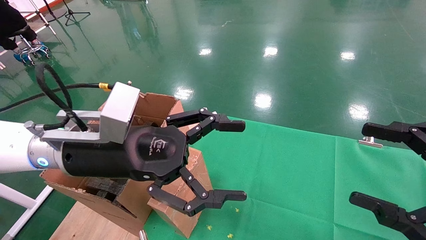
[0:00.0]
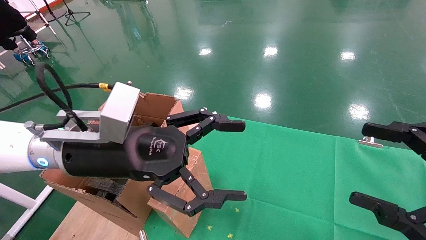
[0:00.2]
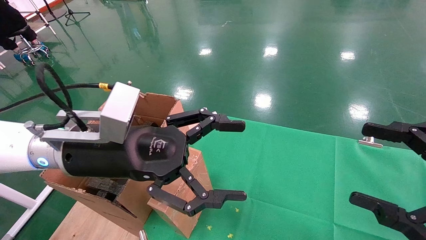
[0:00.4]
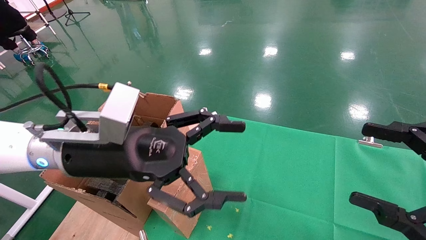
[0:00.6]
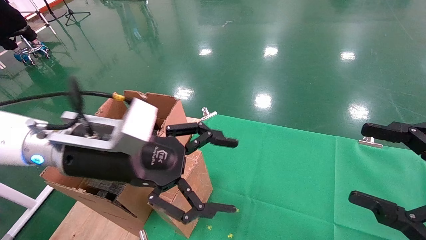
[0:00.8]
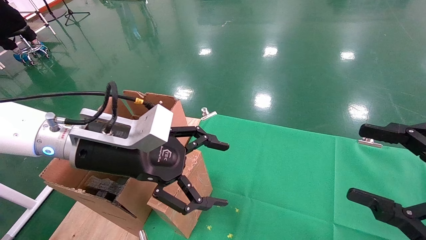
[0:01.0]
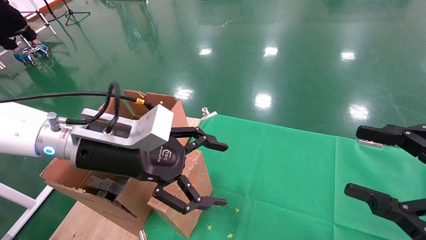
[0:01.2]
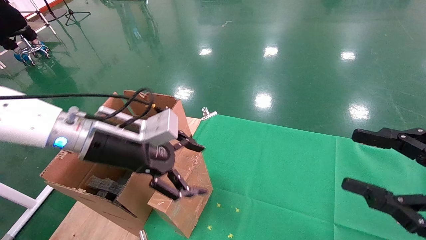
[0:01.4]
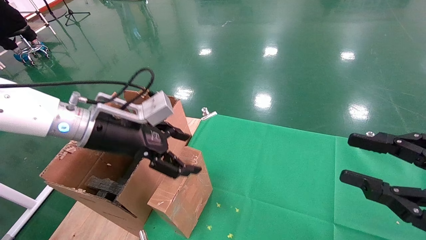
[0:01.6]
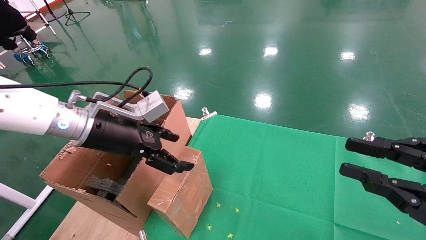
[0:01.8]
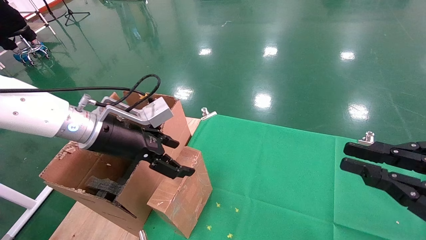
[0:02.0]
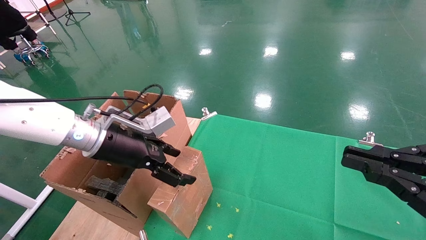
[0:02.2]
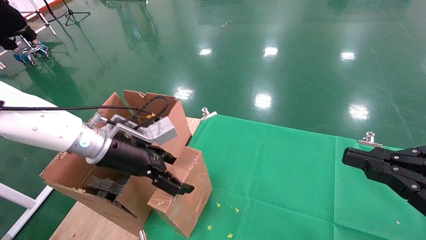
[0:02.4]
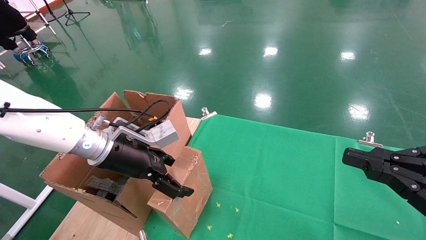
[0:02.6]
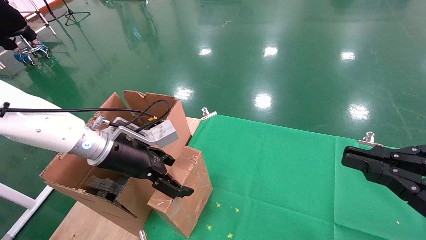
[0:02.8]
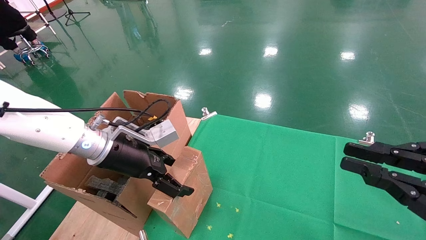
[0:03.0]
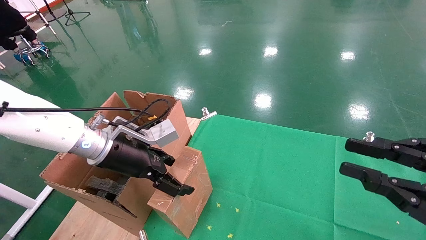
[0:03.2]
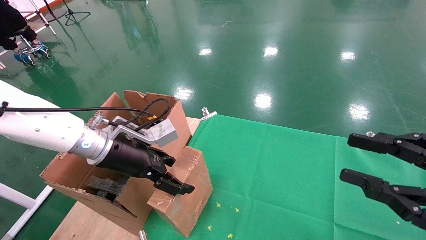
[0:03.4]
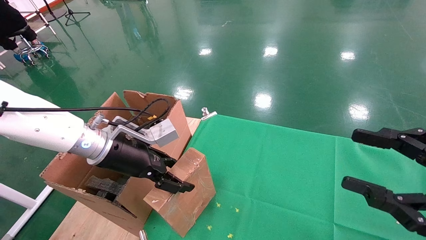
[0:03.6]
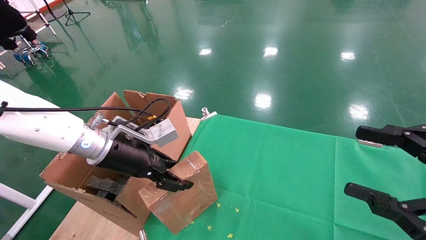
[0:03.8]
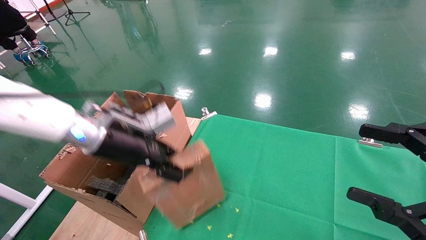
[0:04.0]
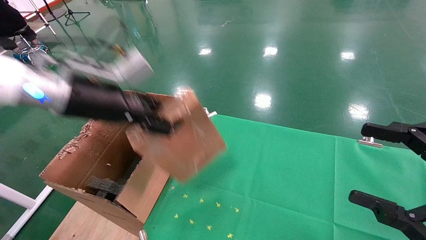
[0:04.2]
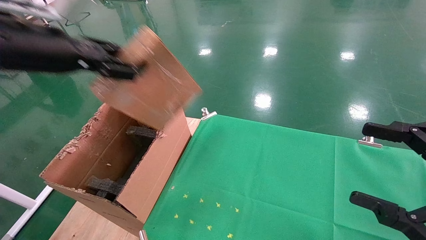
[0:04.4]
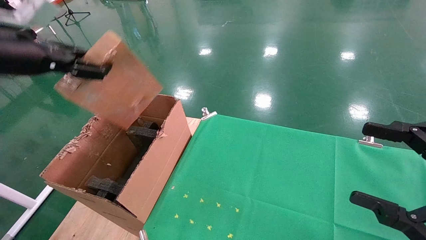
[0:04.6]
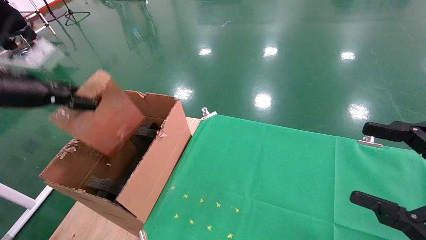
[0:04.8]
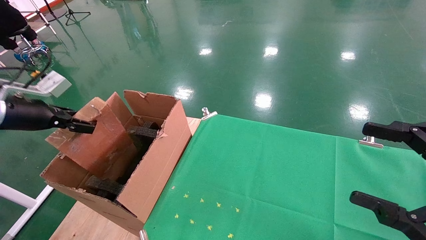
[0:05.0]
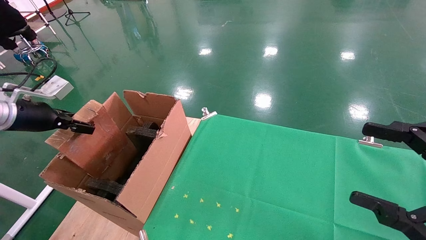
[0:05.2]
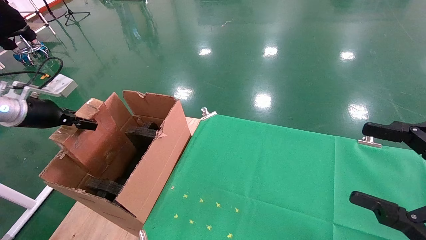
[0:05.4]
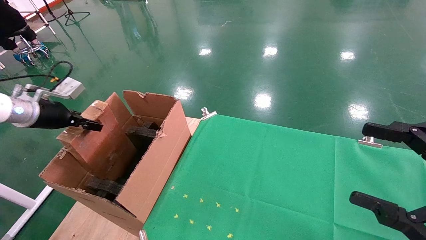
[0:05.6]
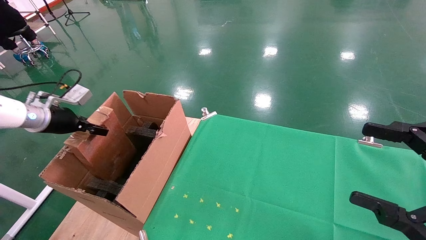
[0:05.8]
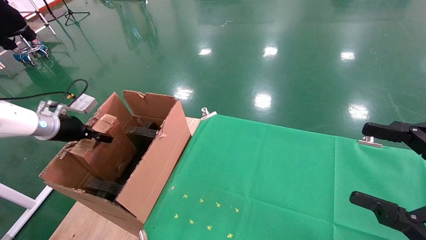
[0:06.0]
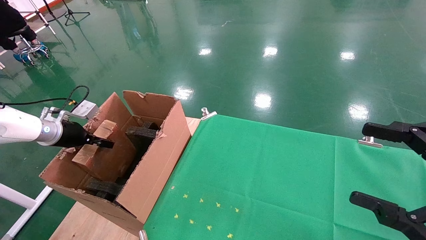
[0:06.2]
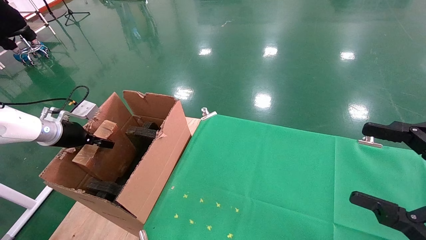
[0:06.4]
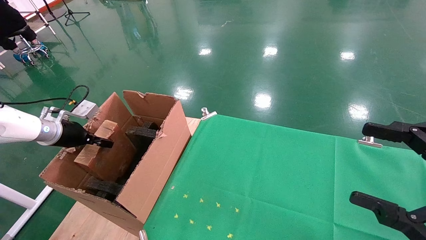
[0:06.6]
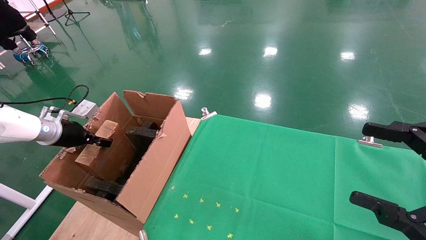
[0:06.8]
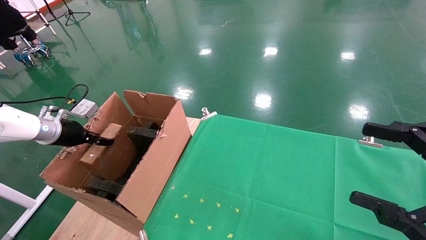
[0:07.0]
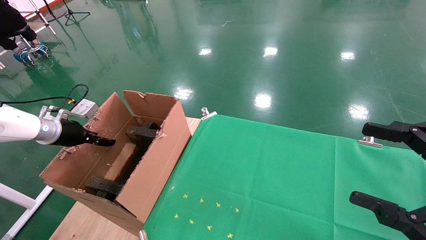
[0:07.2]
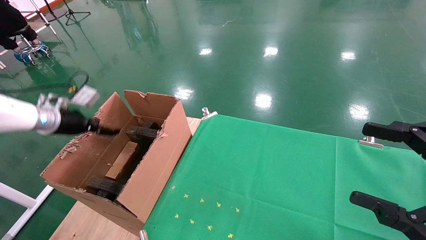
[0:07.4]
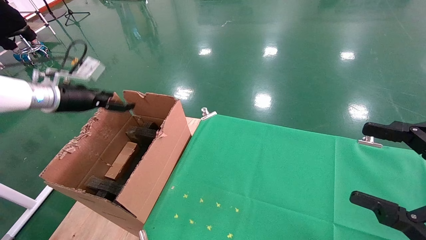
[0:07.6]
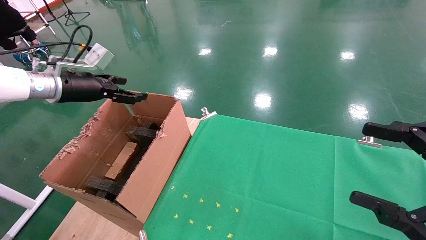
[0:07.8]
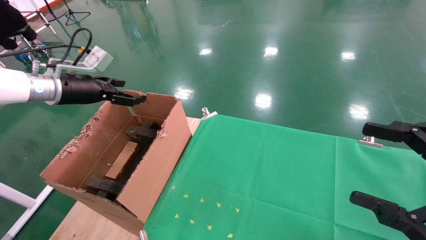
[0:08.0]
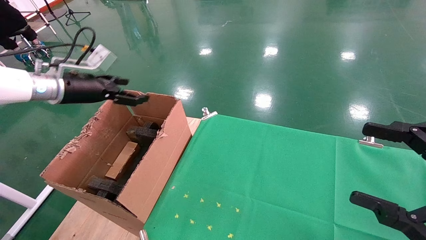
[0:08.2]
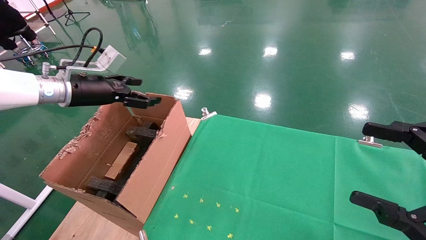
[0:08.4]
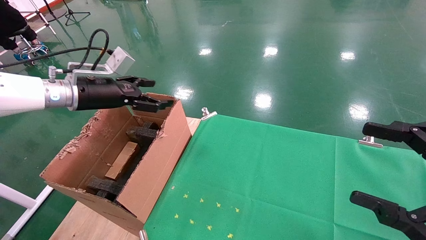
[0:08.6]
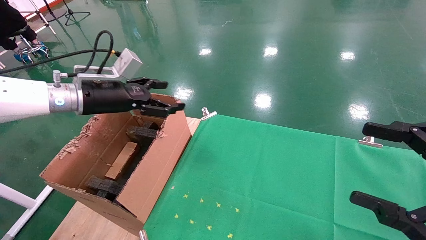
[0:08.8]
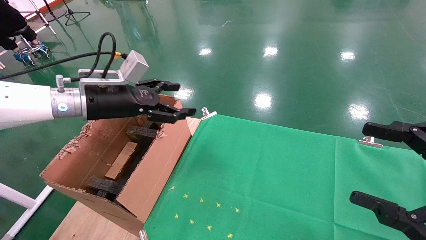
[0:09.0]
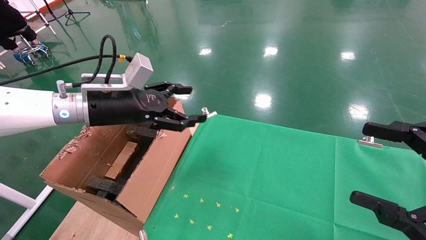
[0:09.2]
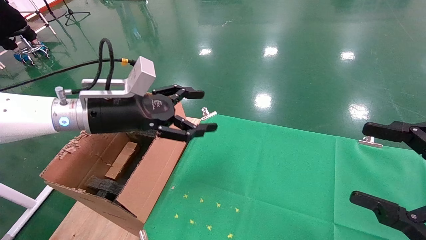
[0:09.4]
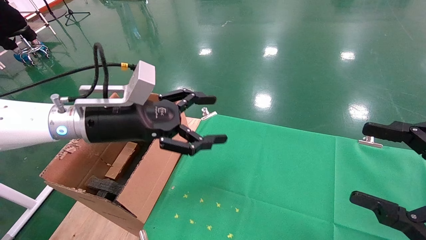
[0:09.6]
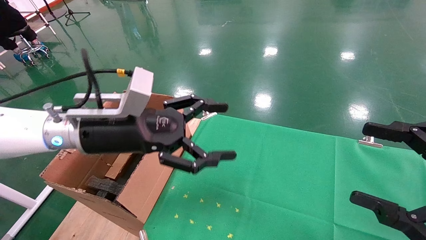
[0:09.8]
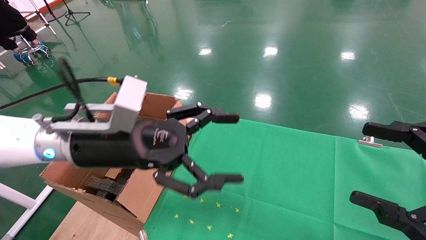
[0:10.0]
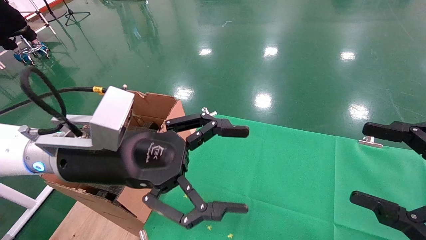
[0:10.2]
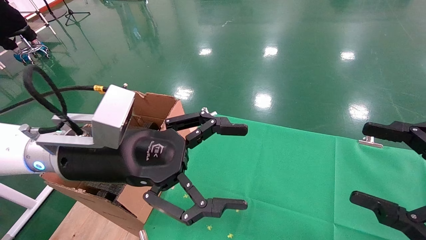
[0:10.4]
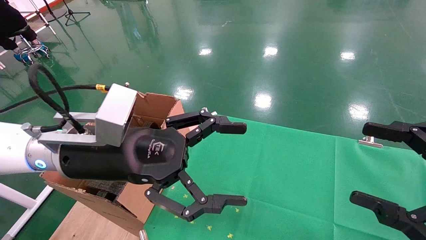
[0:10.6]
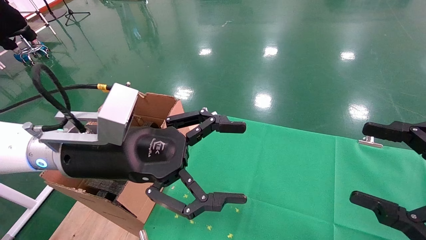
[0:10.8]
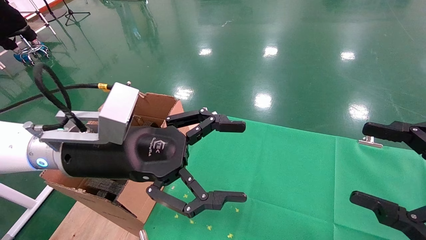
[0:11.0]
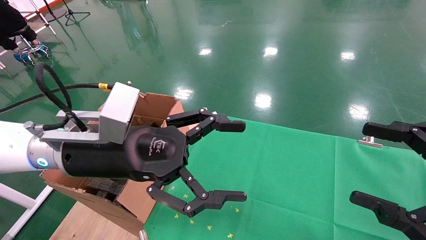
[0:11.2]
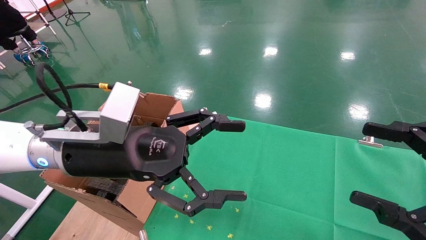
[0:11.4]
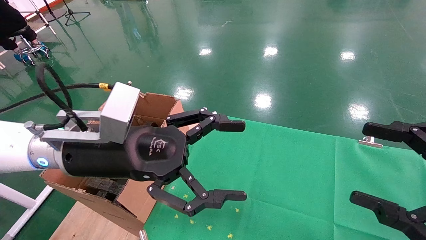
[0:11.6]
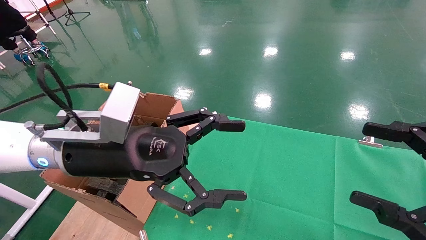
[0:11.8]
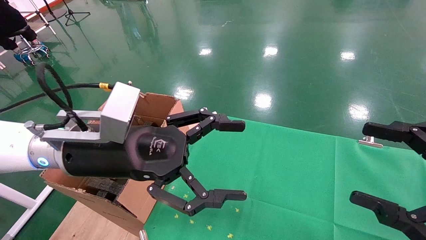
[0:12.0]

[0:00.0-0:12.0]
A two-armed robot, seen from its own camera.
Task of the whole recording: using a robotic arm to pick up a cardboard box and palace it the carton.
Step, 0:01.0 to 0:03.8: Pick up the mouse and the power cord paper box.
Step, 0:04.0 to 0:07.8: Place the mouse and the power cord paper box into the container.
0:00.0 to 0:01.6: The left gripper goes some 5 cm forward. Meanwhile the right gripper closes.
0:01.6 to 0:03.0: The right gripper closes.
0:03.0 to 0:04.4: The left gripper moves upward and to the left, some 20 cm, and closes. The right gripper opens its fingers.
0:04.4 to 0:06.0: The left gripper moves downward, to the left and forward, roughly 25 cm.
0:06.0 to 0:07.6: The left gripper shifts some 5 cm upward, and opens its fingers.
0:07.6 to 0:09.0: The left gripper is displaced to the right by approximately 15 cm.
0:09.0 to 0:10.4: The left gripper is displaced backward and to the right by roughly 15 cm.
0:10.4 to 0:12.0: Both grippers stay put.

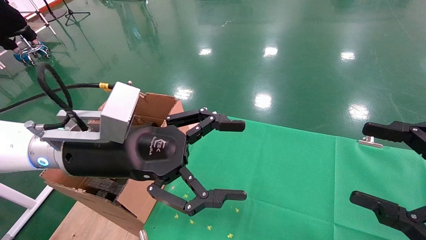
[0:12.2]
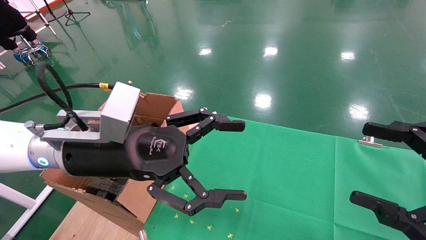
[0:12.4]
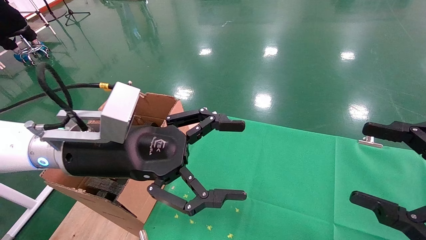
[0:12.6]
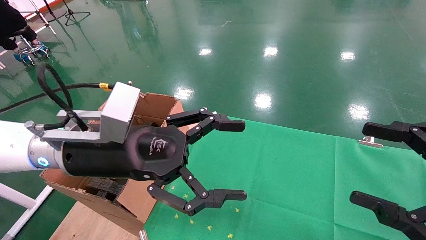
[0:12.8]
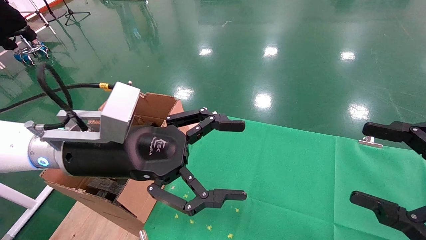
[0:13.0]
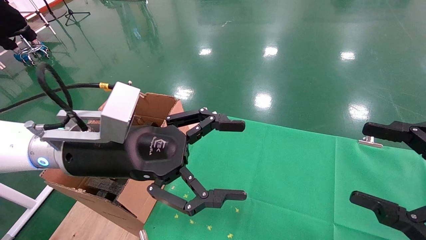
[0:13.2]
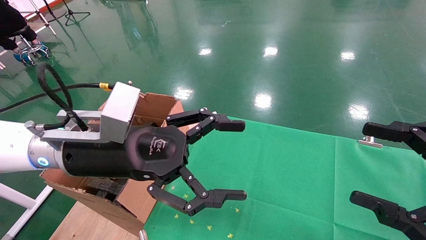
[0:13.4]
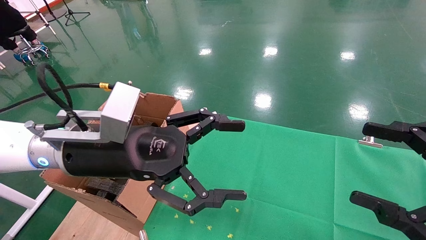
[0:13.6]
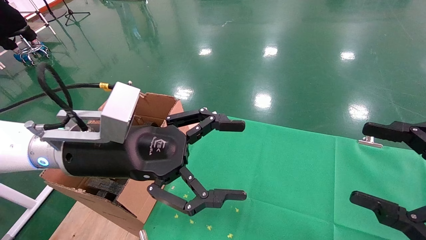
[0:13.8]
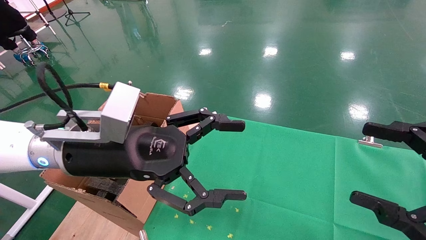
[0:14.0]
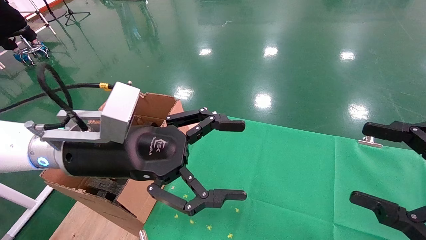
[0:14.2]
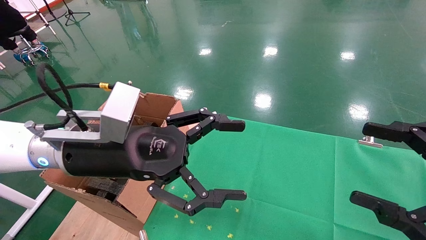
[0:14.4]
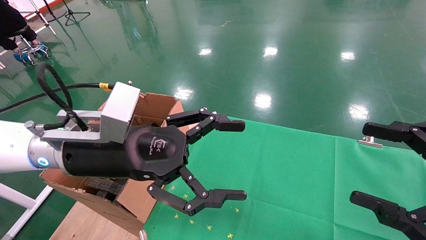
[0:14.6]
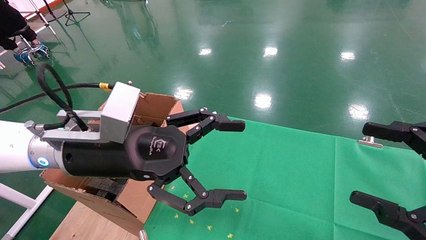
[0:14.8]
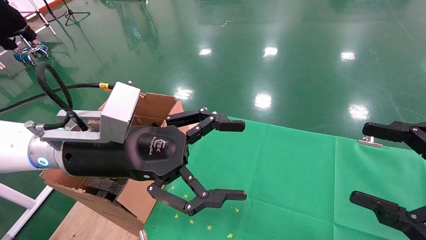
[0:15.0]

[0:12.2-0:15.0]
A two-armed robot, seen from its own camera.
Task of the whole recording: using a robotic arm to pick up a cardboard box and palace it the carton.
0:12.2 to 0:15.0: Both grippers stay put.
